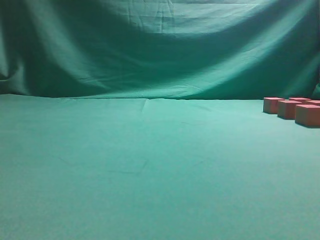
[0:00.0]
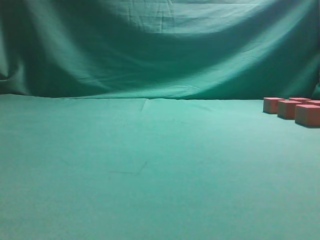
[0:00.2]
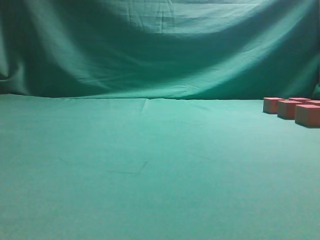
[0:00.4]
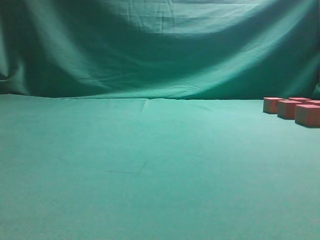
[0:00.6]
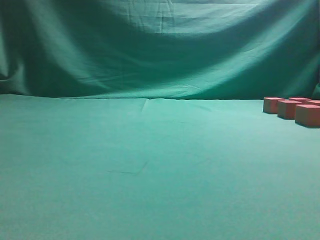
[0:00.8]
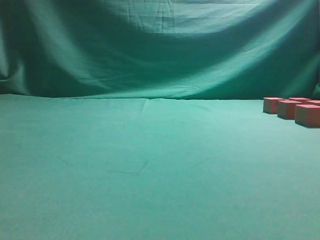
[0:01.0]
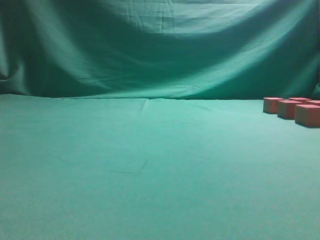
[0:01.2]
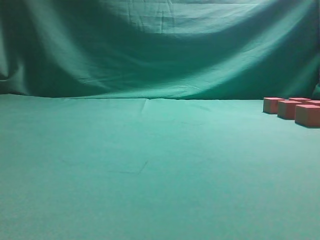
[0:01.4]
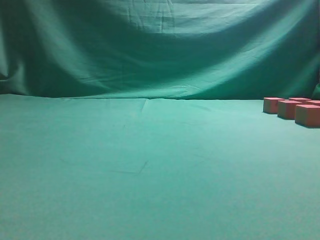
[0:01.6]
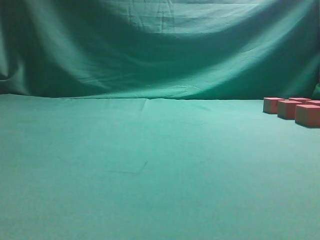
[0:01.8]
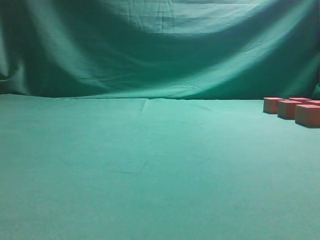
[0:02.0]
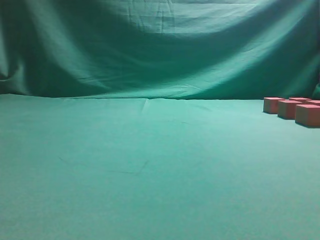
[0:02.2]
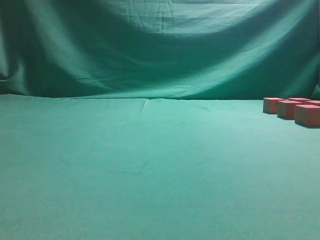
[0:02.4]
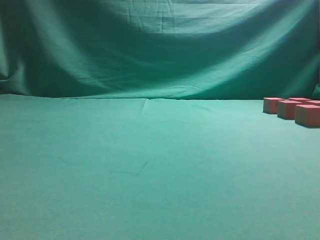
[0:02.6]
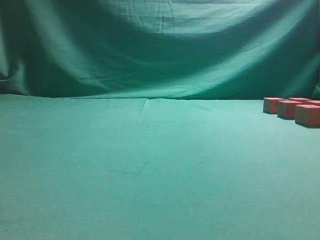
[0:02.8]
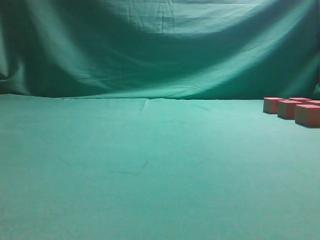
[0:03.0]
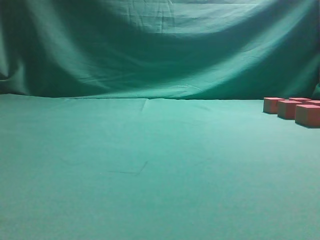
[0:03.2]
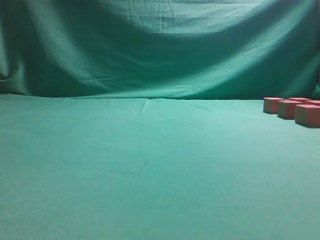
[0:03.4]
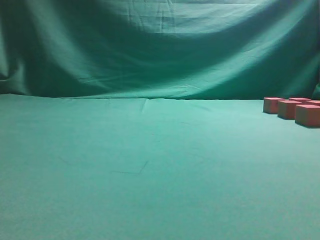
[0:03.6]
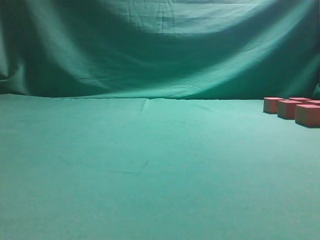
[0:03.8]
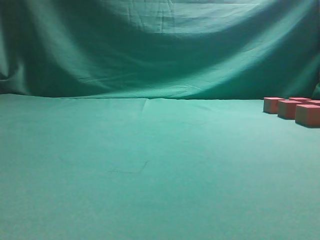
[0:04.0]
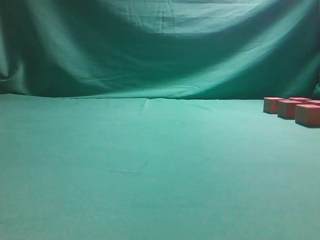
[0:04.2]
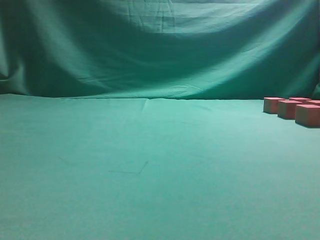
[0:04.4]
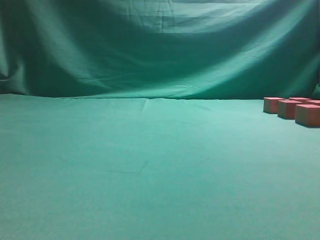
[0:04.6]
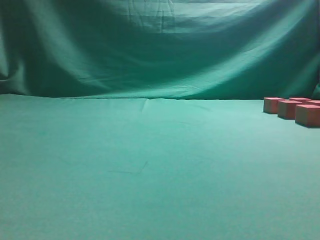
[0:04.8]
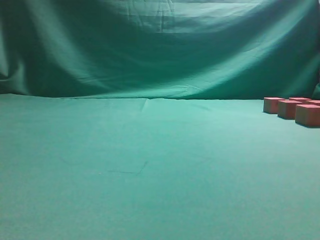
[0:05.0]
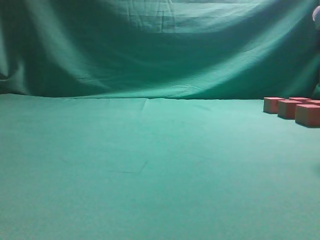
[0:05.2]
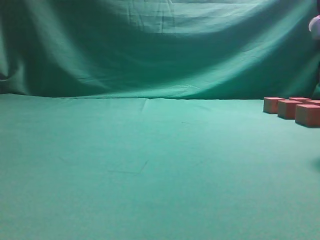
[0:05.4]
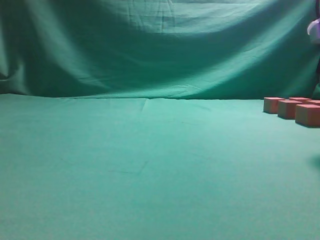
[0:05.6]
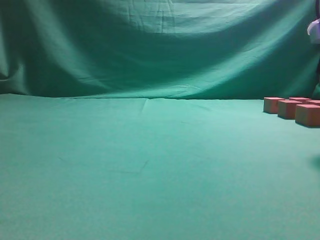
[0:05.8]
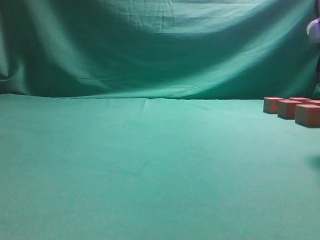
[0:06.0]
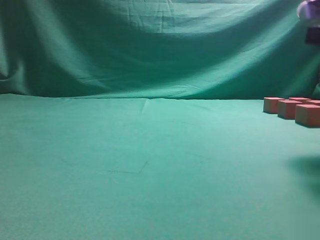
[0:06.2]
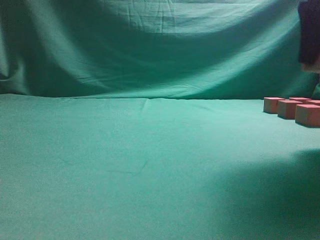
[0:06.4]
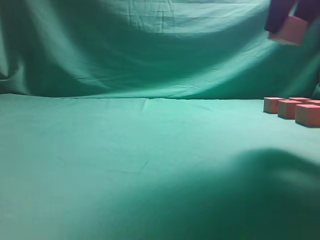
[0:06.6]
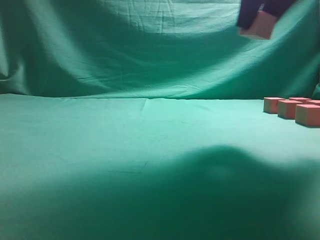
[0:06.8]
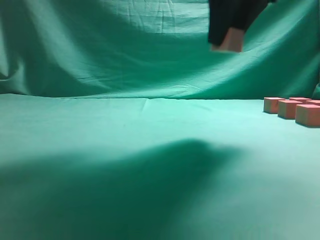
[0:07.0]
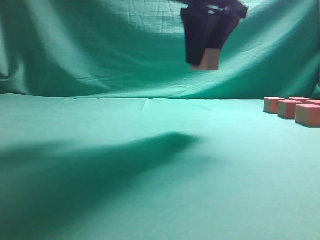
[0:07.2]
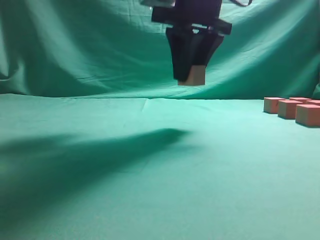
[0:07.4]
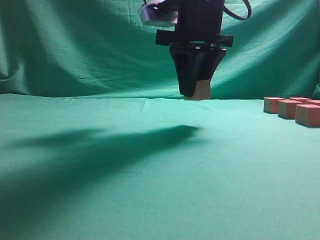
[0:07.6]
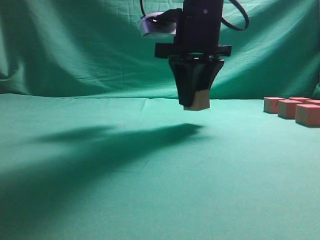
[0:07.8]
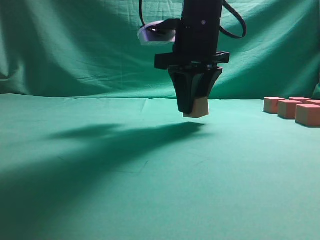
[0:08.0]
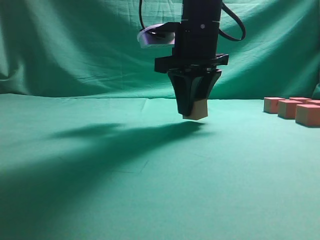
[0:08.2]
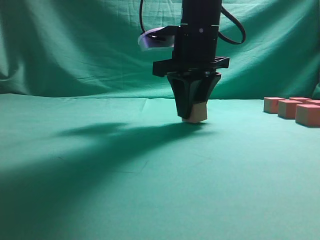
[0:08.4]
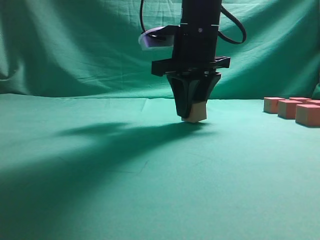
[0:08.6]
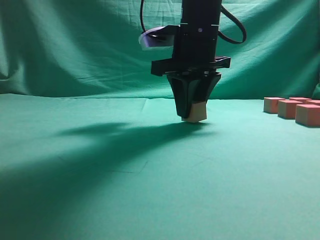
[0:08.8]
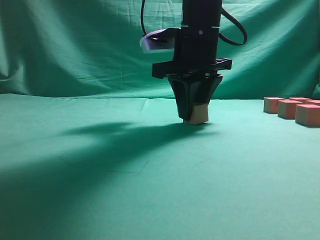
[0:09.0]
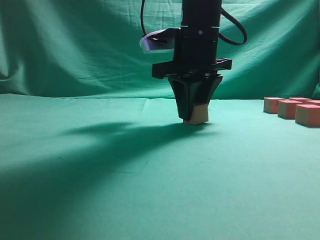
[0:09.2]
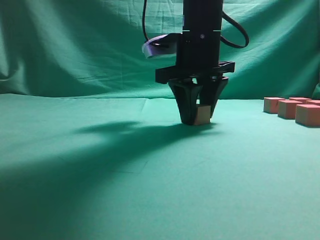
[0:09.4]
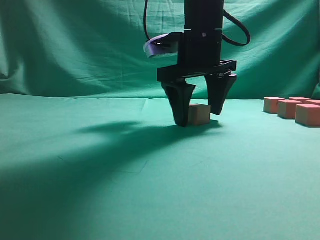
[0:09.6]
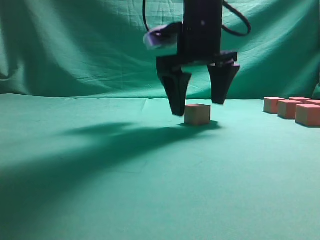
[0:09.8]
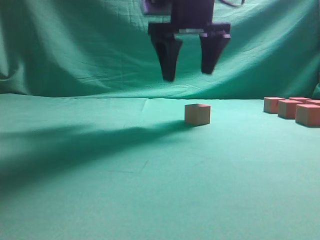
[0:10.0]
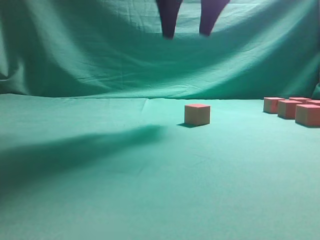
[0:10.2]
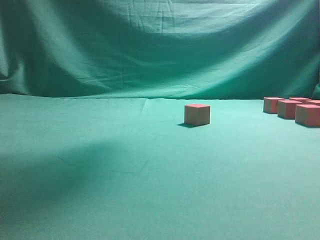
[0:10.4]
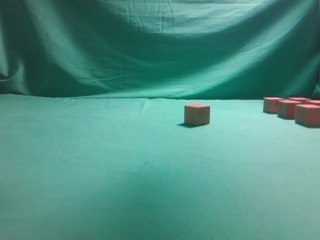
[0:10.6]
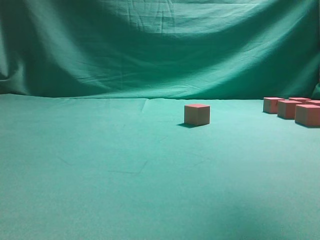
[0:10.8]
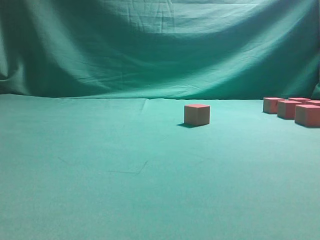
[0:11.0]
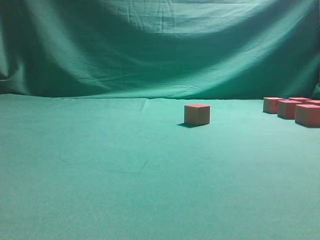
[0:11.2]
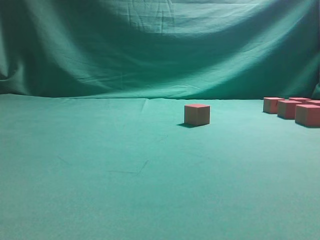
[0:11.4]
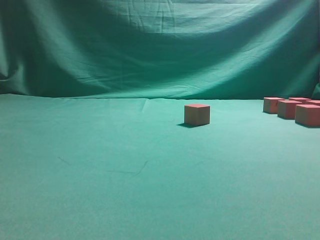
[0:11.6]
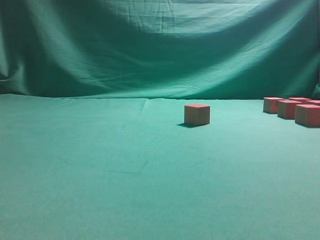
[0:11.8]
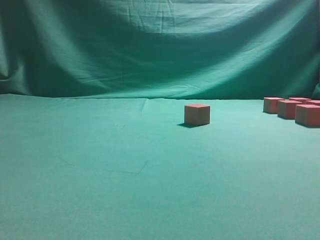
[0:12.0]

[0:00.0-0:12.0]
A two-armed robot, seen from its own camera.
Task of the whole recording: pick up the multiple cubes in two columns one by one and place them in another position on the table.
Step, 0:06.2 to 0:10.0: Place the block at the correct position to assemble the letter S.
0:06.0 to 0:07.6: The right gripper is displaced to the left and forward by about 20 cm.
0:07.6 to 0:09.0: There are only small adjustments of the grippers.
0:09.0 to 0:10.4: The right gripper heads upward, covering about 20 cm, and opens its fingers.
0:10.4 to 0:12.0: The right gripper is displaced to the right, downward and backward by about 30 cm.

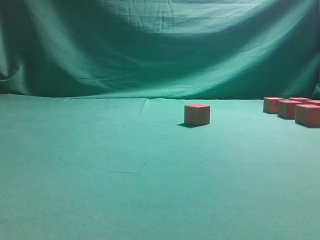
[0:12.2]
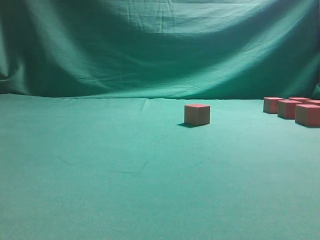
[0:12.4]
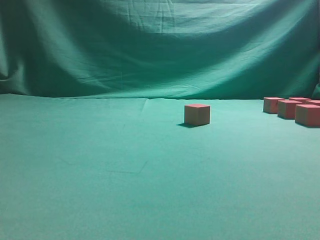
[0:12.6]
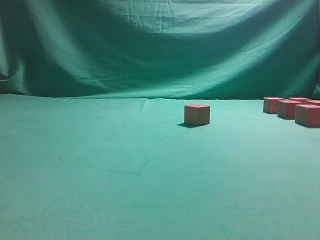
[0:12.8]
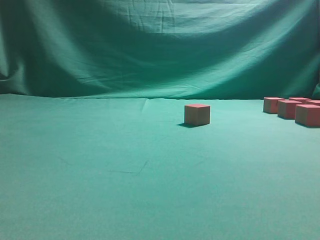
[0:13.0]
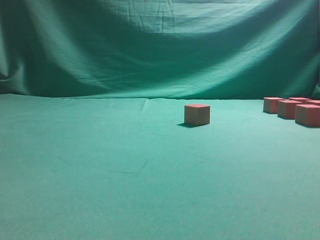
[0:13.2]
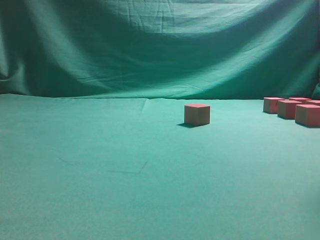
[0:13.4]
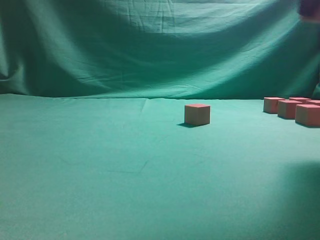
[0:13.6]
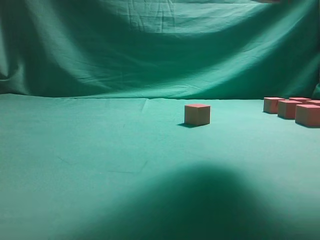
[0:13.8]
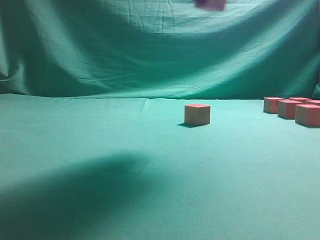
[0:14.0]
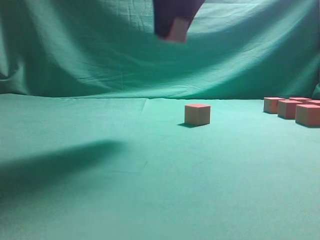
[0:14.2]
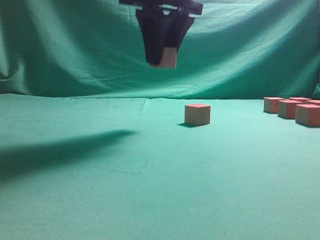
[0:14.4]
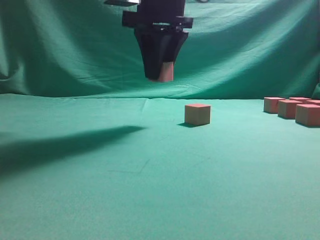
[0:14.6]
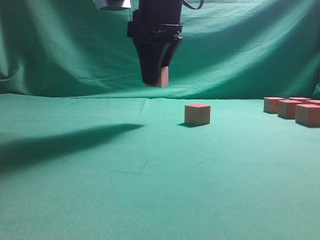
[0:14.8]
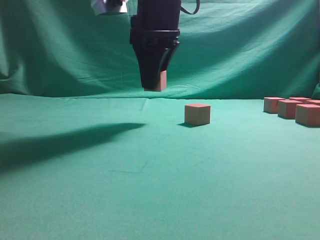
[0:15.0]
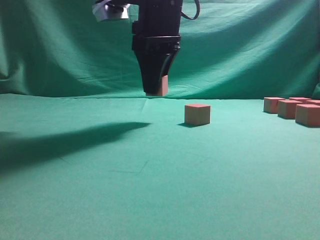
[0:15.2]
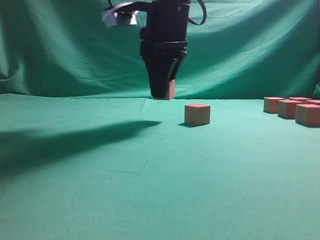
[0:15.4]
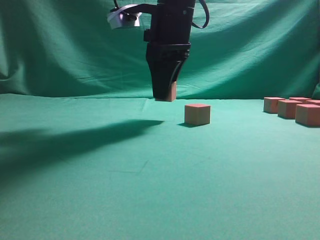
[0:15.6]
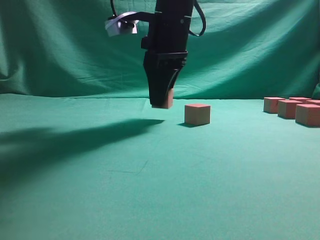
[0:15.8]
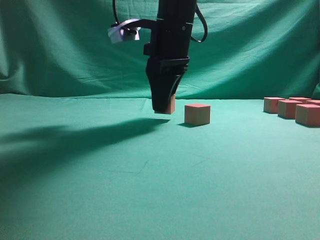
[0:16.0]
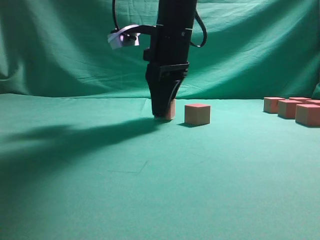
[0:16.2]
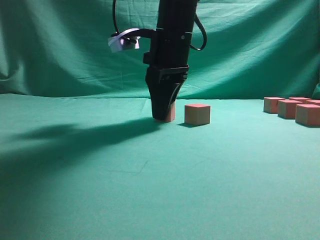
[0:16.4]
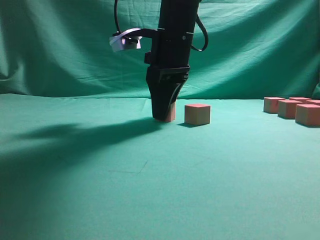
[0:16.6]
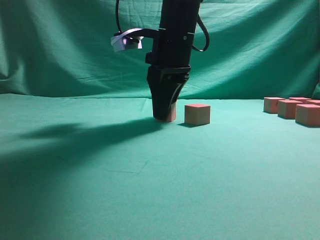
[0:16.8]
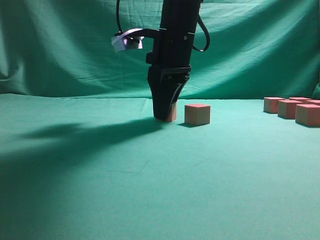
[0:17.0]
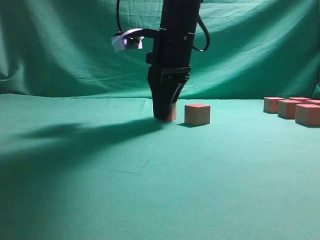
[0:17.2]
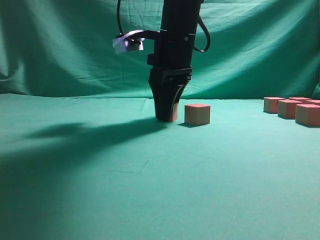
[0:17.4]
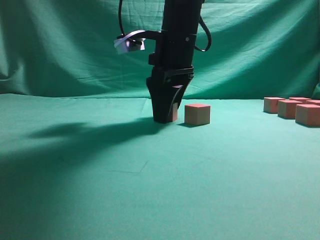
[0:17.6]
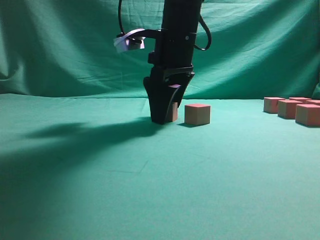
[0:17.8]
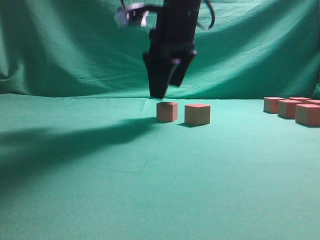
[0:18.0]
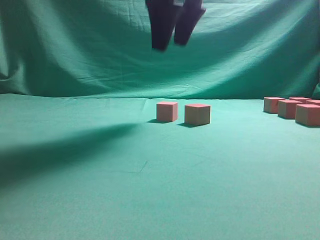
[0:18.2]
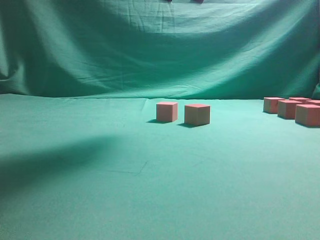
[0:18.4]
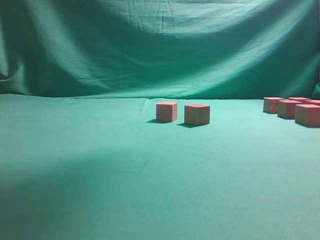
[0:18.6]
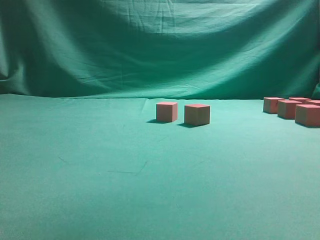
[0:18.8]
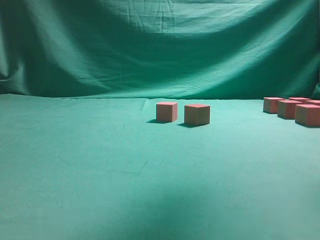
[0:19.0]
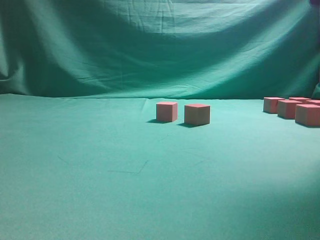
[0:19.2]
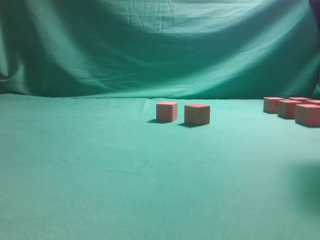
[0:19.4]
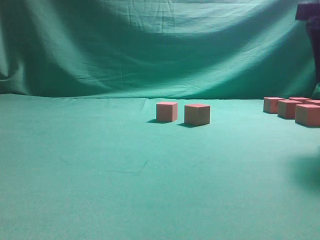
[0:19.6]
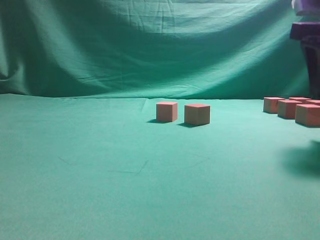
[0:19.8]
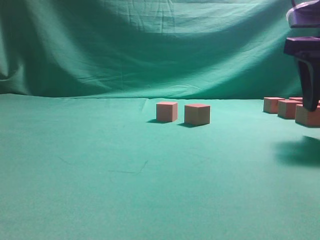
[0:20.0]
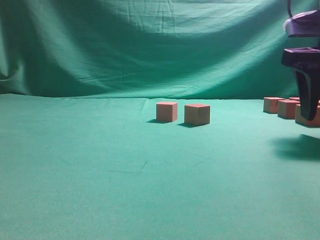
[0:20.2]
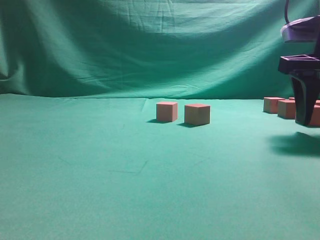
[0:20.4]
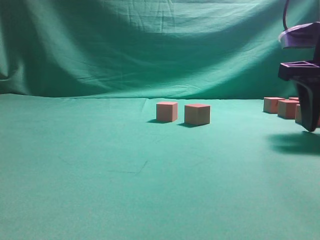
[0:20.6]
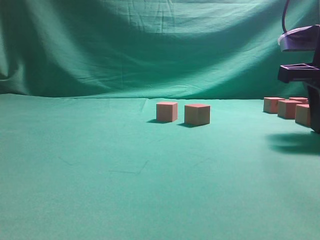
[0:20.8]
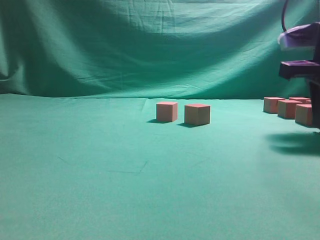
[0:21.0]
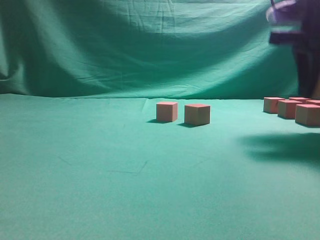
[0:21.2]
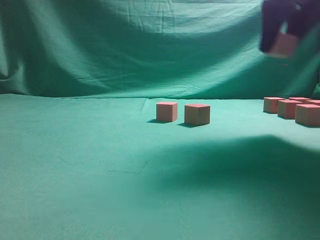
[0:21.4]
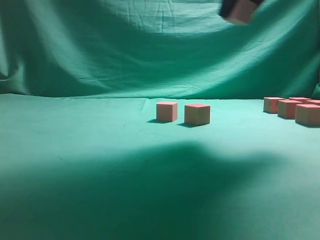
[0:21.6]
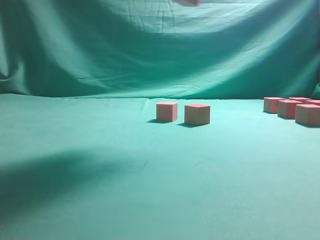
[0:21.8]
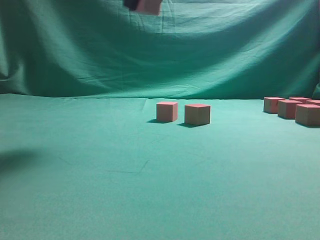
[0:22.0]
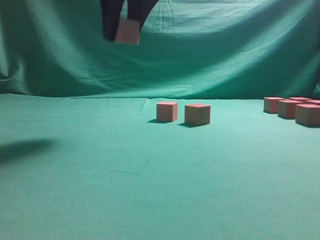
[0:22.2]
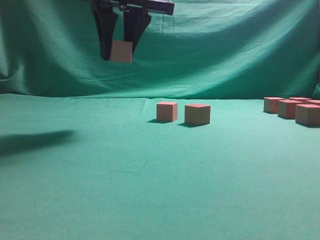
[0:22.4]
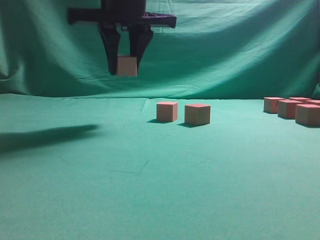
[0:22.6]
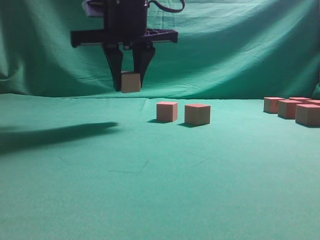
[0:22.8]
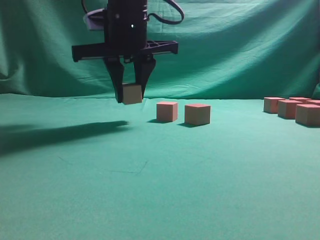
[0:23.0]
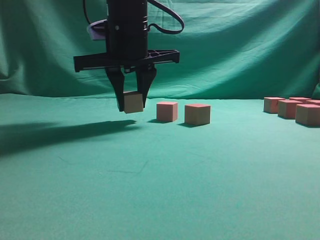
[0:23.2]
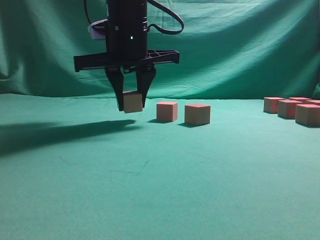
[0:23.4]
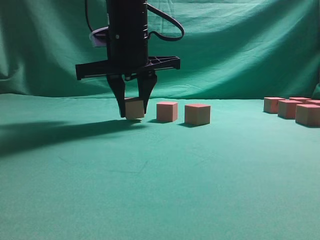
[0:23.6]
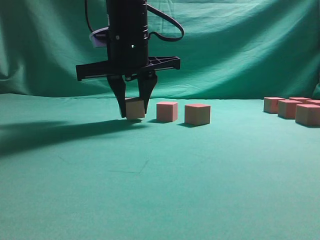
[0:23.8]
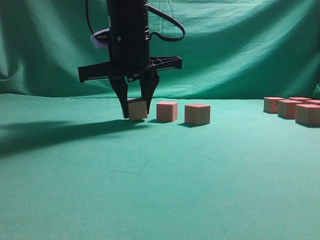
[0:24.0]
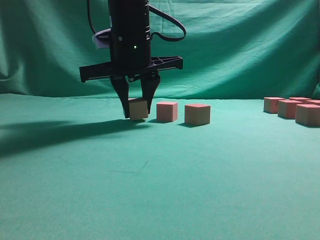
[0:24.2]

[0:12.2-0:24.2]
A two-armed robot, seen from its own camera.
Task of the whole recording: pick up the multiple cubes in two columns one by one and place them in another position on the table.
Step, 0:13.4 to 0:18.2: Place the block at the correct position to assemble the letter S.
Step, 0:18.4 to 0:21.0: Pick up the block on the table.
0:12.2 to 0:13.8: The right gripper travels upward and to the left by about 20 cm, and closes its fingers.
0:13.8 to 0:15.2: The right gripper goes about 20 cm to the left, downward and forward.
0:15.2 to 0:16.6: The right gripper changes place by about 5 cm.
0:16.6 to 0:18.2: The right gripper goes about 10 cm upward, and opens.
0:18.2 to 0:19.8: The right gripper goes roughly 20 cm to the right and backward, and reaches roughly 15 cm upward, then returns.
0:19.8 to 0:21.2: The right gripper closes.
0:21.2 to 0:22.6: The right gripper moves to the left, some 25 cm.
0:22.6 to 0:24.2: The right gripper moves downward, some 5 cm.
